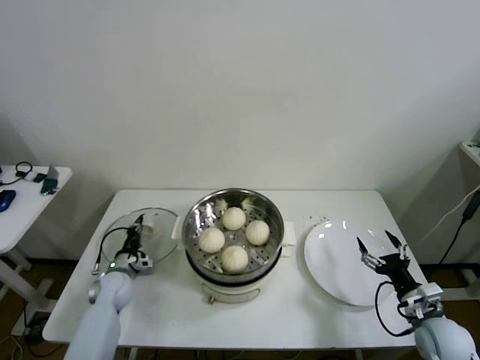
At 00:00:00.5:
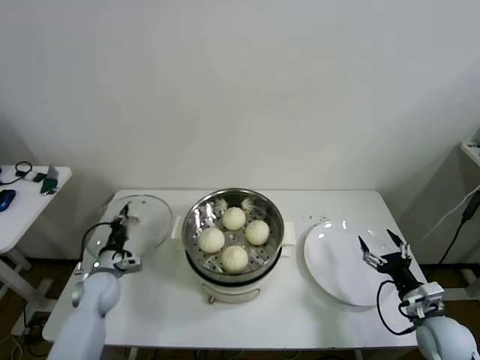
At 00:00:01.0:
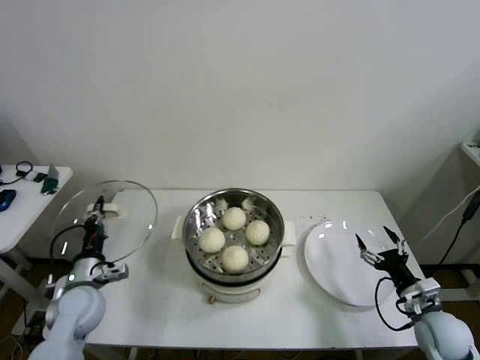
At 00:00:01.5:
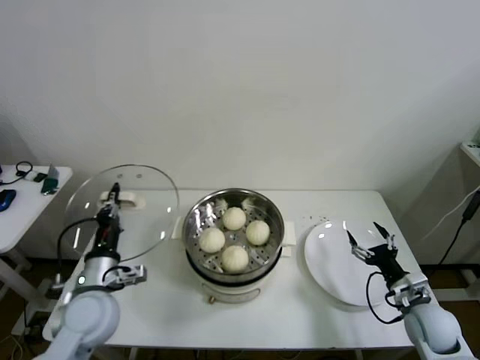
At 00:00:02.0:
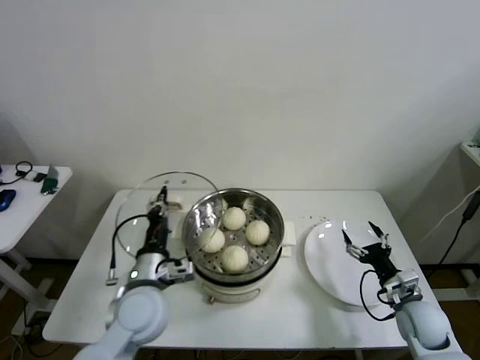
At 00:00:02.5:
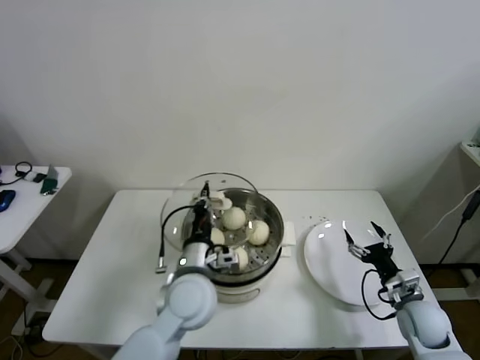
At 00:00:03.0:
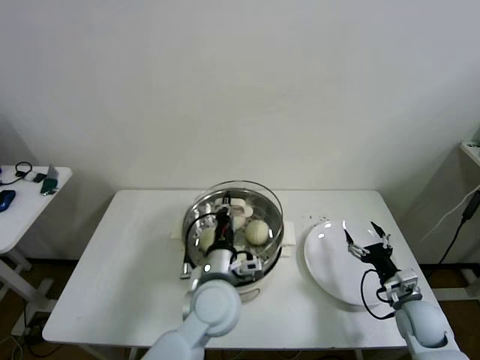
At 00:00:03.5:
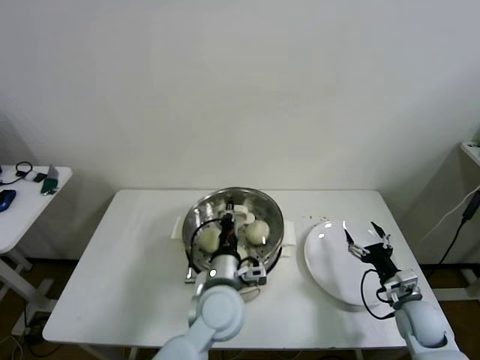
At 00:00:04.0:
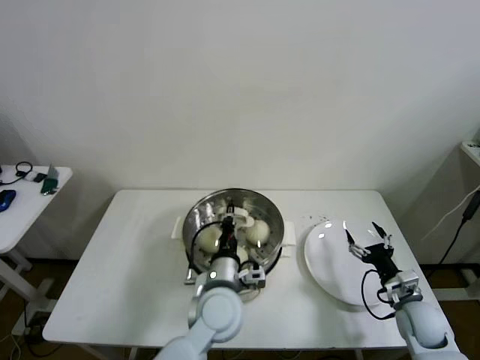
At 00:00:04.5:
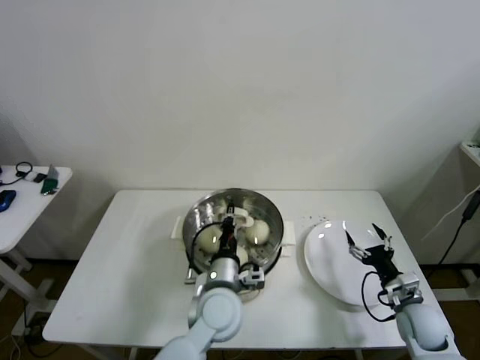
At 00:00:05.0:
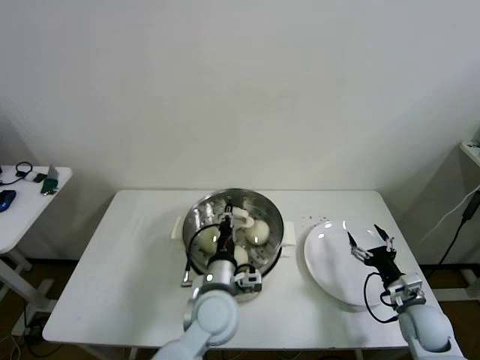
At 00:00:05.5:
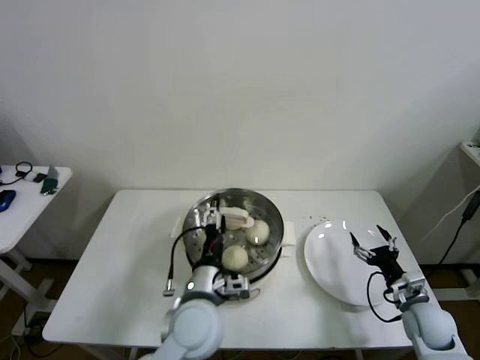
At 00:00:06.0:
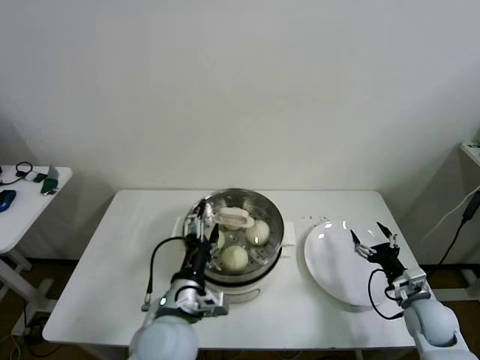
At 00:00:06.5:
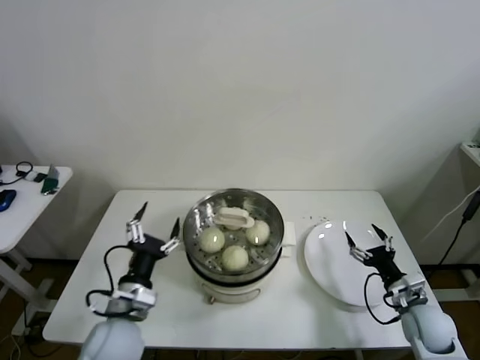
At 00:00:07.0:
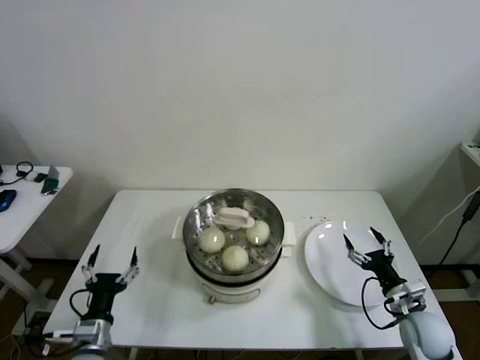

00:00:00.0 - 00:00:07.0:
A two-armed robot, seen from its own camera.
Step, 00:00:00.0 - 00:00:05.0: Place the pot lid on the steamer with left gripper.
00:00:00.0 - 00:00:02.0: The left gripper moves upward, to the right and backward, approximately 30 cm.
00:00:02.0 - 00:00:03.5: The left gripper shifts some 15 cm to the right.
00:00:03.5 - 00:00:05.0: The grippers move only a little.
00:00:05.0 - 00:00:07.0: The left gripper shifts approximately 25 cm to the left, and opens.
